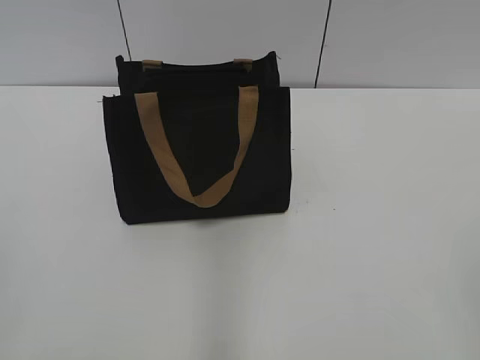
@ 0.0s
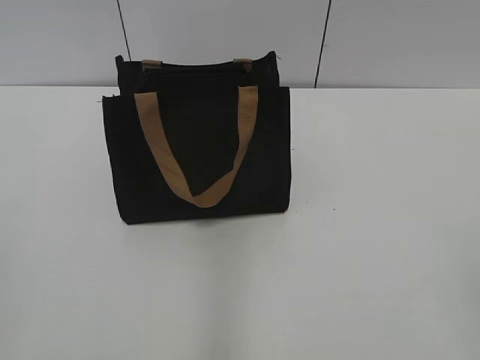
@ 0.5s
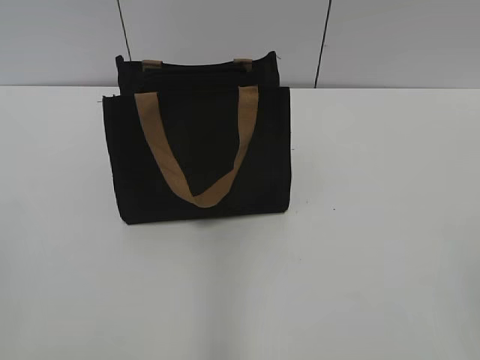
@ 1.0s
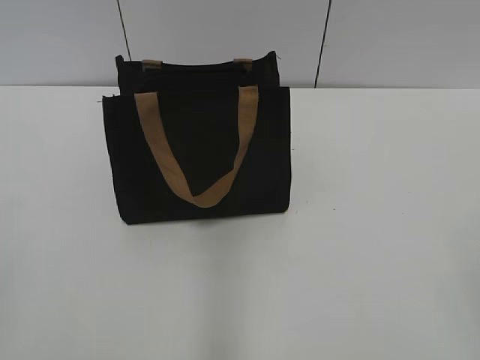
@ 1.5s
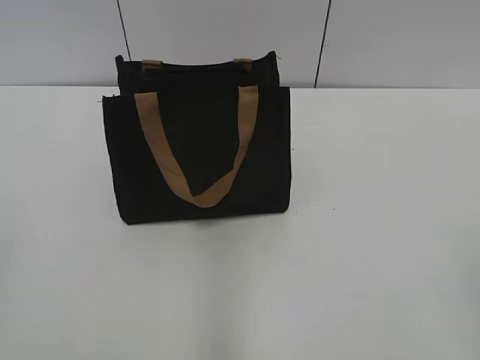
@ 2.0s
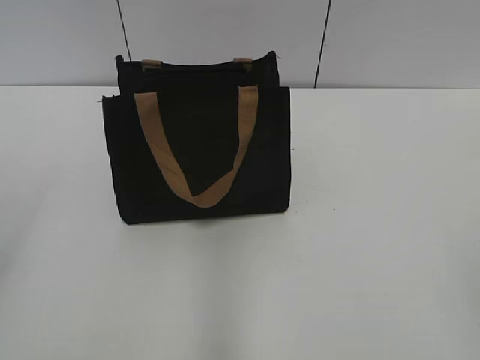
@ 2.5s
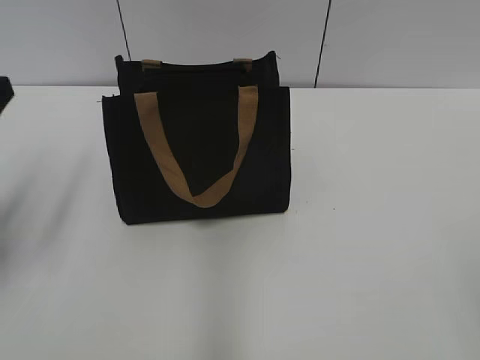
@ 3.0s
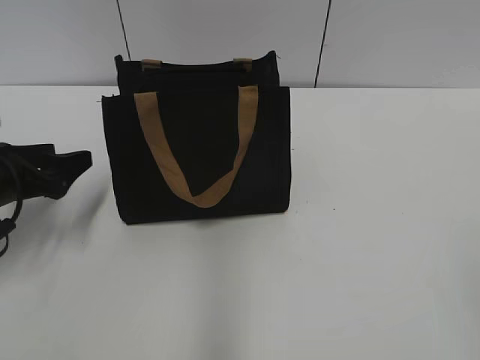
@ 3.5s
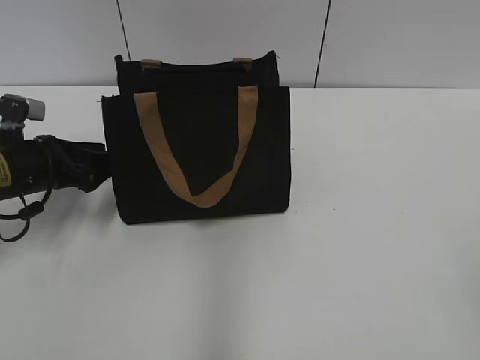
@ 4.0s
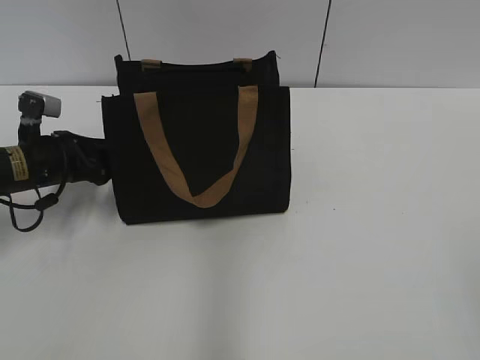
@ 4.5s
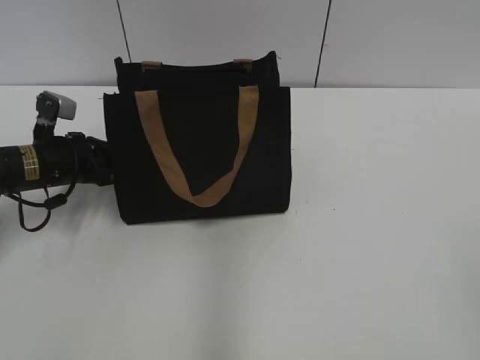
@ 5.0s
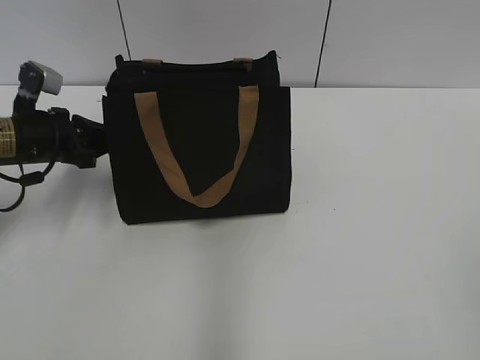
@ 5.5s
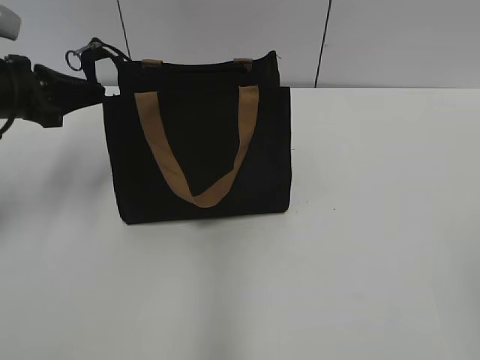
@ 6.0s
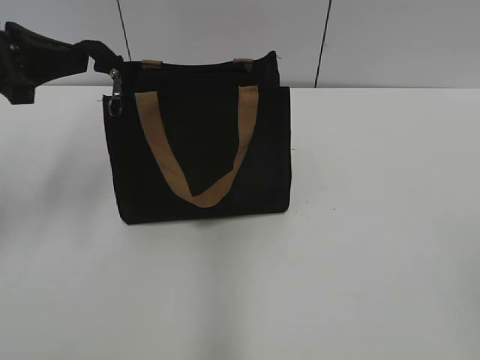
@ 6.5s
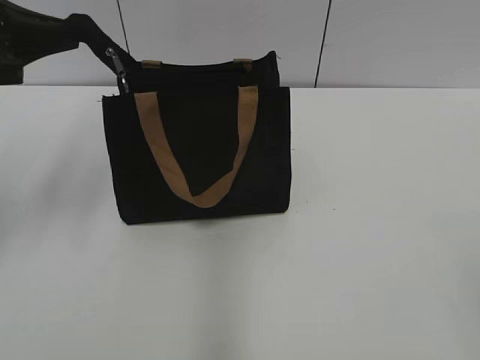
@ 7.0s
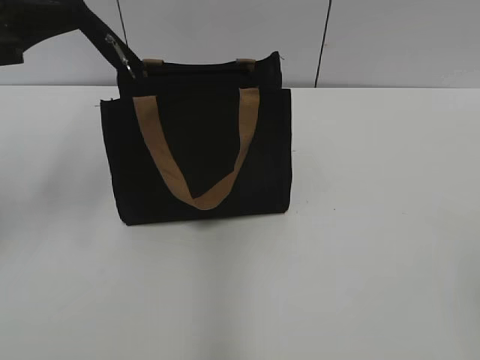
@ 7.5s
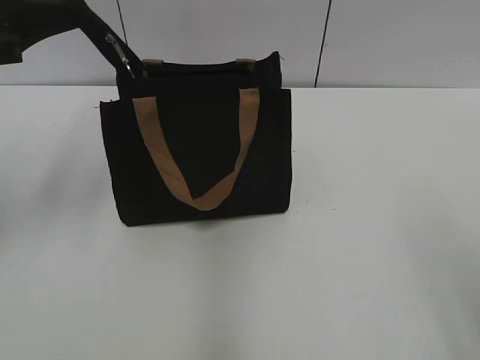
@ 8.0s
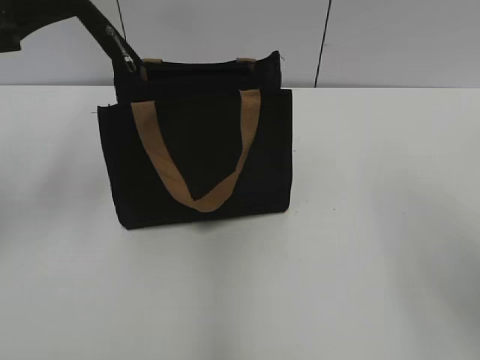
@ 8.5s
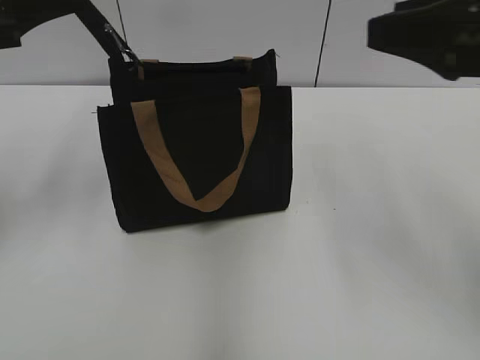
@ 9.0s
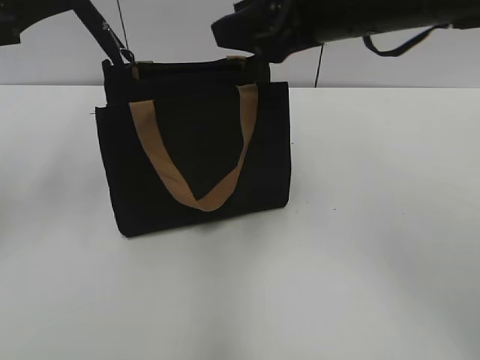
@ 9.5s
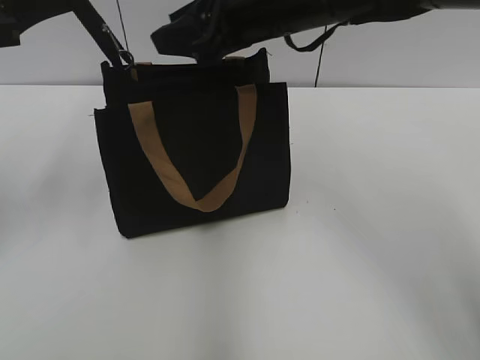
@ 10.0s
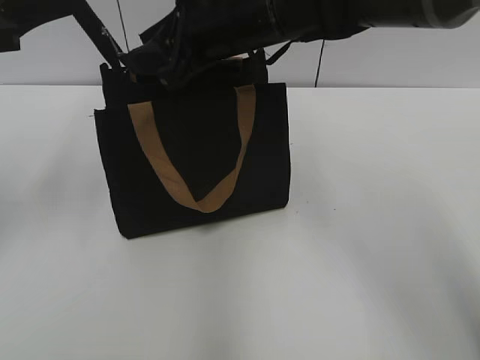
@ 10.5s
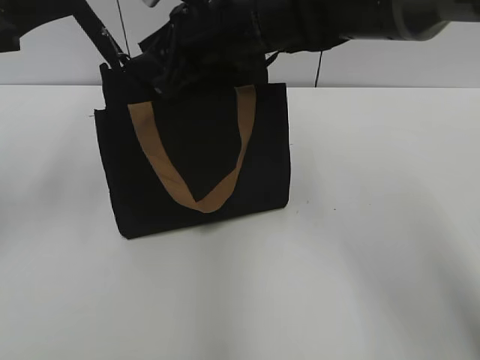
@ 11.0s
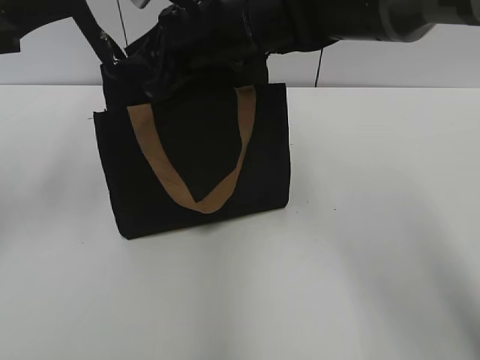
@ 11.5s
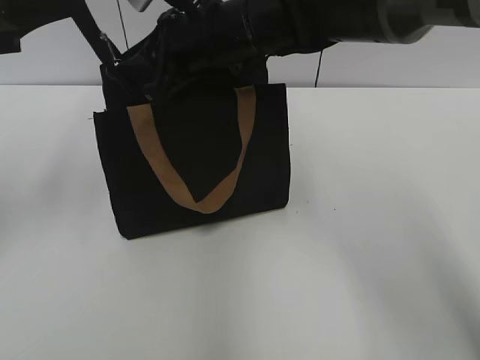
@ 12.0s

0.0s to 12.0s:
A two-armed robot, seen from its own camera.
2.0s to 4.0s: The left gripper moves forward and downward, approximately 40 cm.
4.0s to 6.0s: The left gripper travels upward by approximately 10 cm, and closes.
6.0s to 8.0s: The left gripper shifts approximately 10 cm upward. Meanwhile the right gripper changes place by roughly 5 cm.
8.0s to 10.0s: The right gripper shifts about 40 cm forward and to the left.
10.0s to 12.0s: The right gripper is displaced to the left by roughly 5 cm.

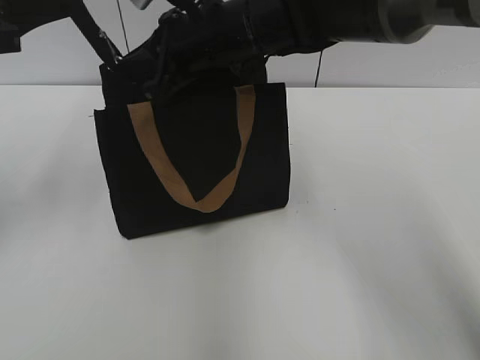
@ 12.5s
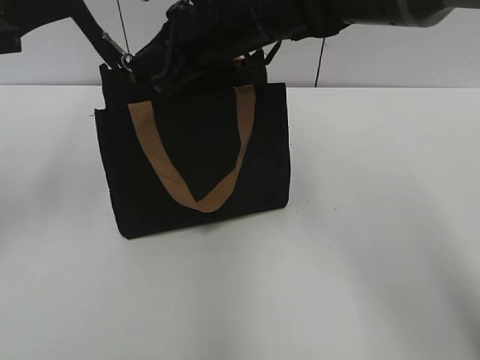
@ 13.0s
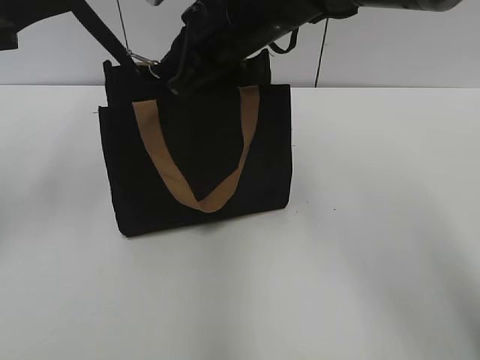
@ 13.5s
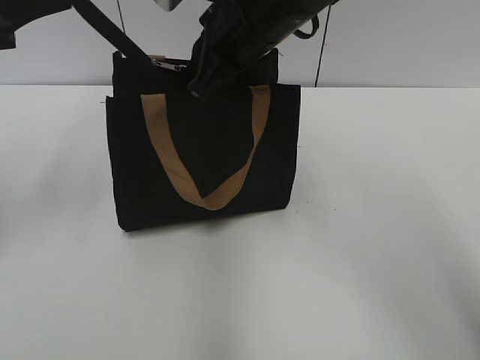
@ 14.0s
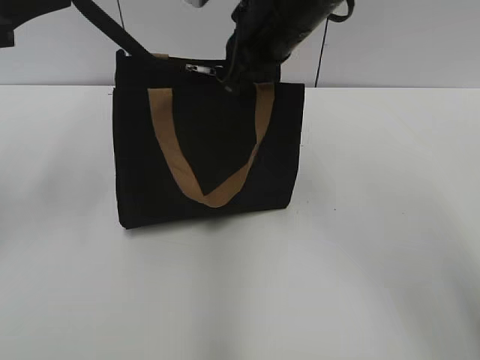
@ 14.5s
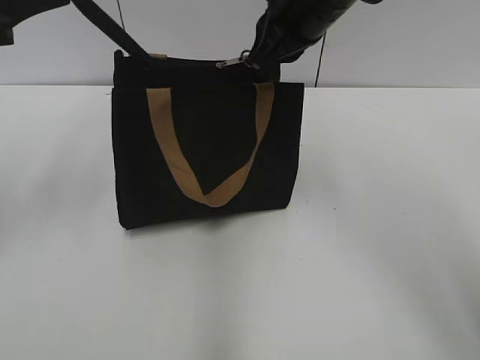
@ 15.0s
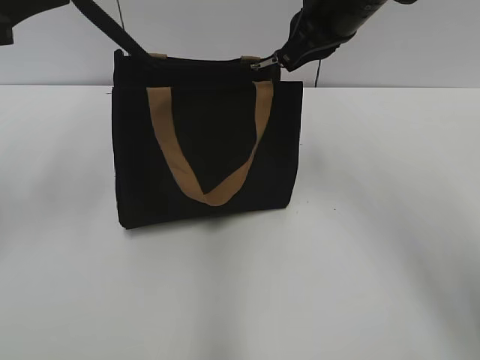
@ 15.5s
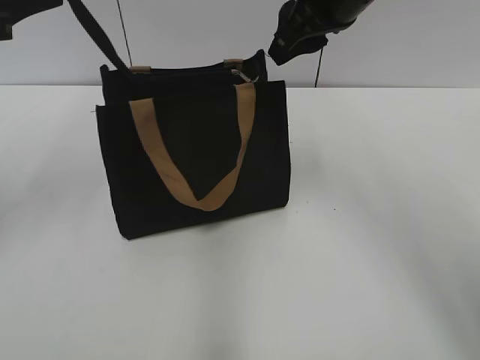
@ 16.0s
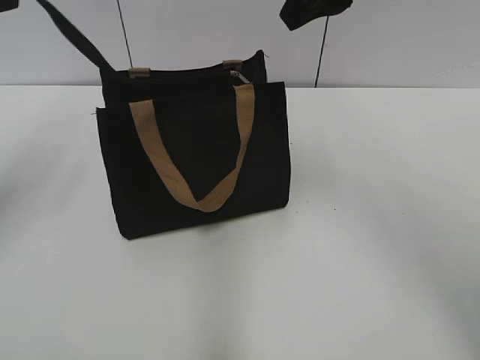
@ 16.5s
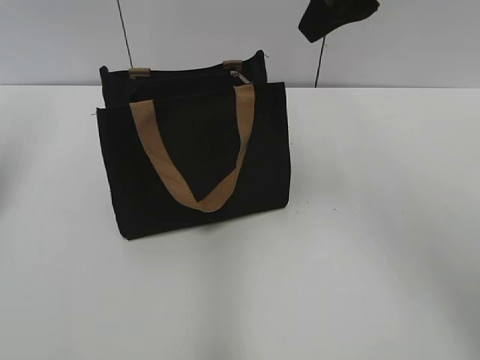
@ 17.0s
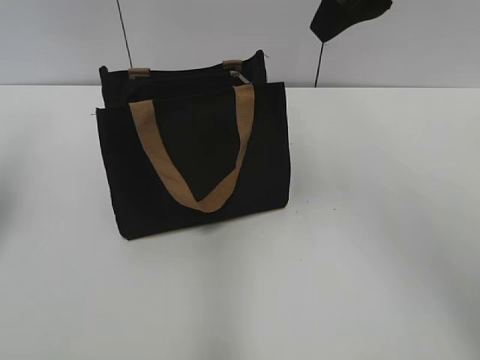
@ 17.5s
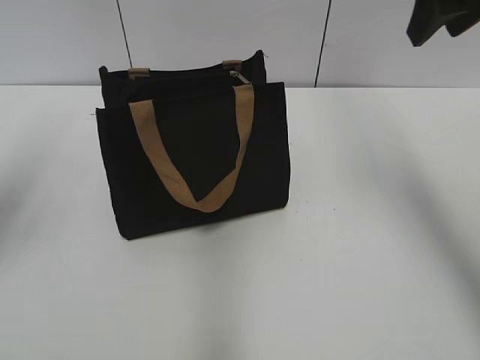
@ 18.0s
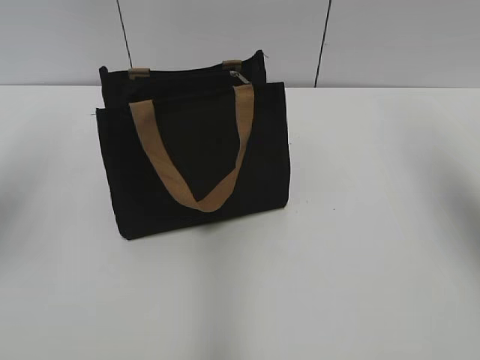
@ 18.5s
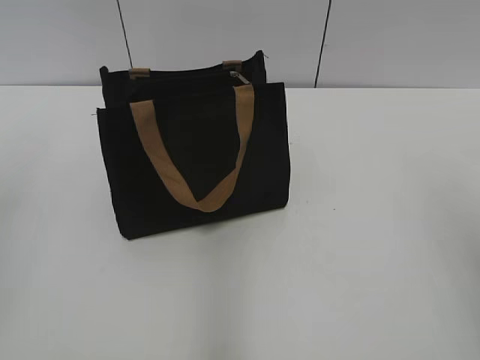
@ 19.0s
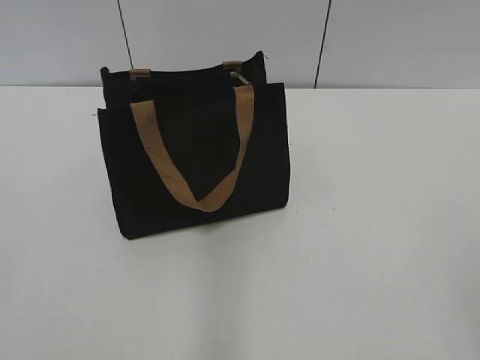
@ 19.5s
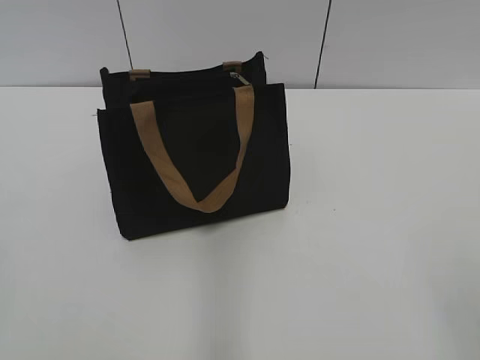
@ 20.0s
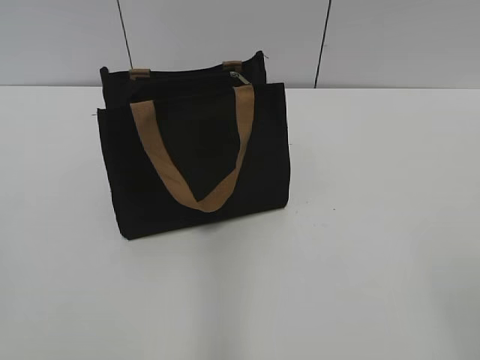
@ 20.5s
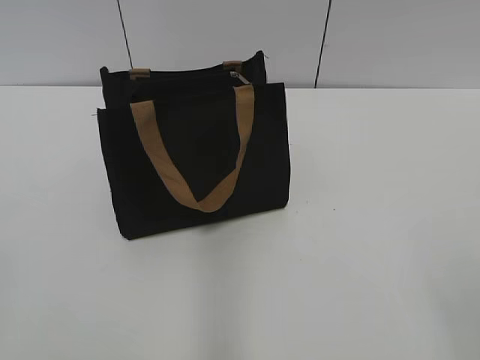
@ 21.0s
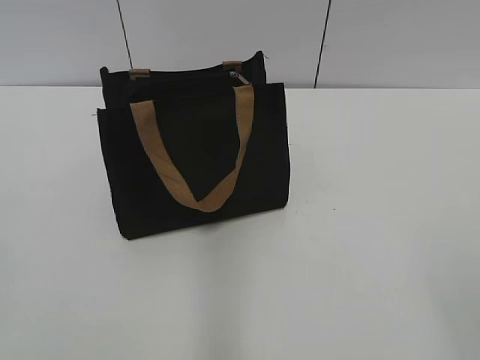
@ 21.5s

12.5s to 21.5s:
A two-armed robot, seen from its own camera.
Step, 12.5s to 15.5s: Zip up the bag with your right hand.
12.5s to 14.5s: The right gripper is displaced to the right by some 5 cm.
14.5s to 17.0s: The left gripper heads to the left, covering approximately 10 cm, and opens its fingers; the right gripper travels upward and to the right by roughly 10 cm, and opens its fingers.
17.0s to 19.5s: The left gripper shifts about 30 cm backward; the right gripper goes roughly 35 cm backward and to the right.

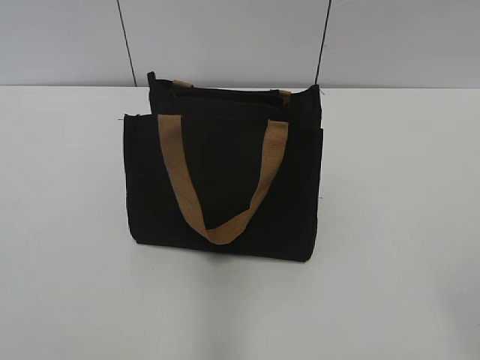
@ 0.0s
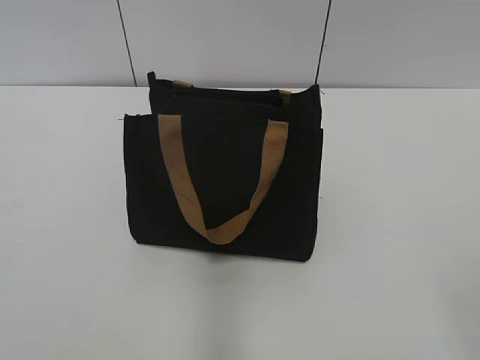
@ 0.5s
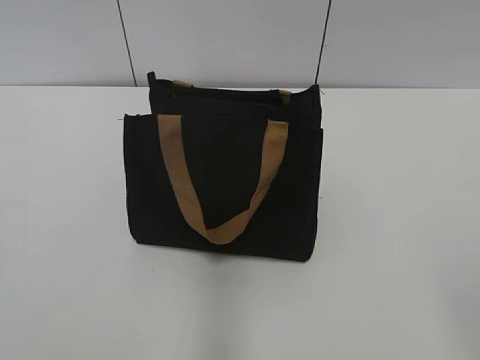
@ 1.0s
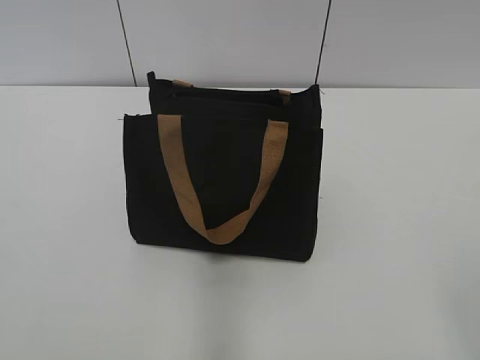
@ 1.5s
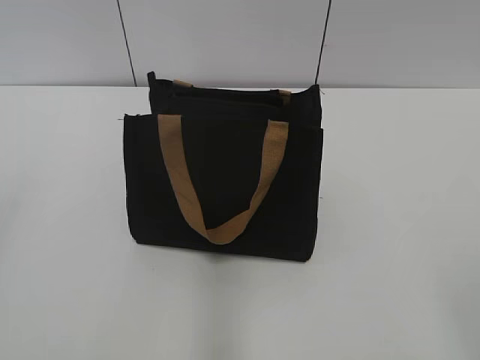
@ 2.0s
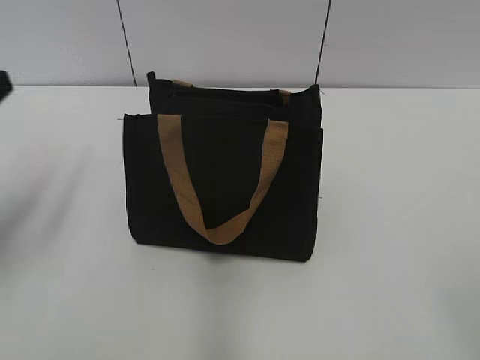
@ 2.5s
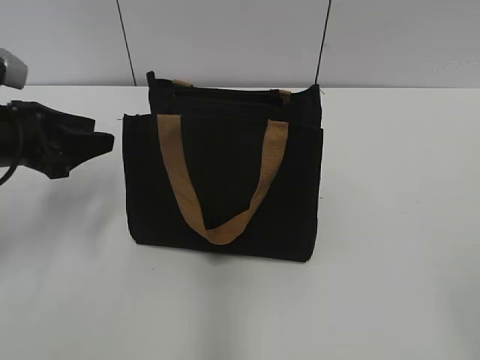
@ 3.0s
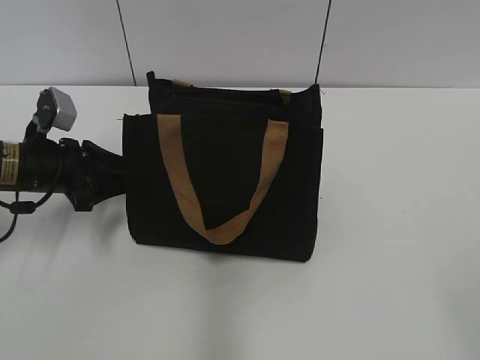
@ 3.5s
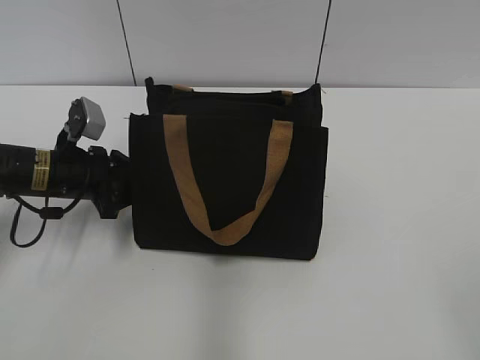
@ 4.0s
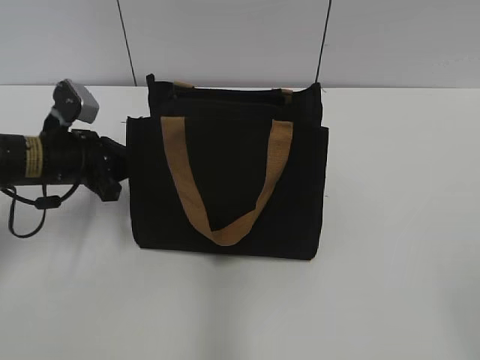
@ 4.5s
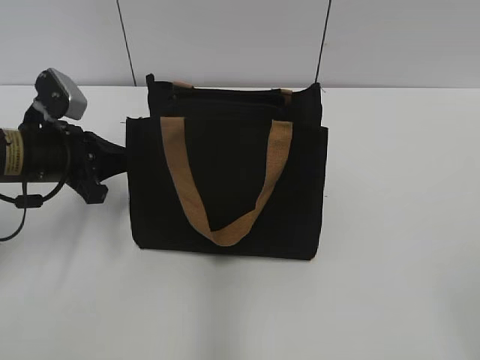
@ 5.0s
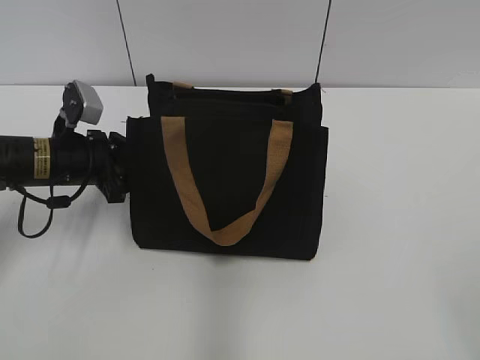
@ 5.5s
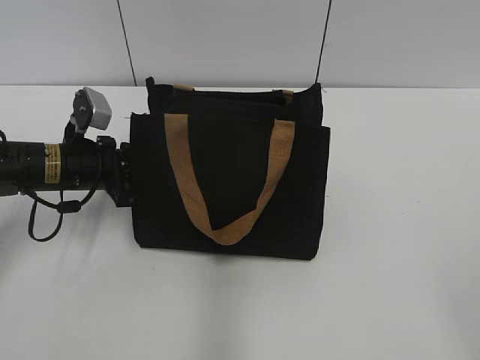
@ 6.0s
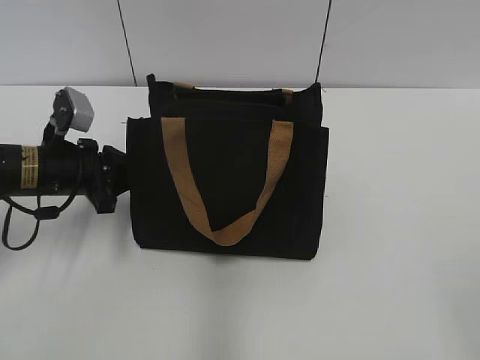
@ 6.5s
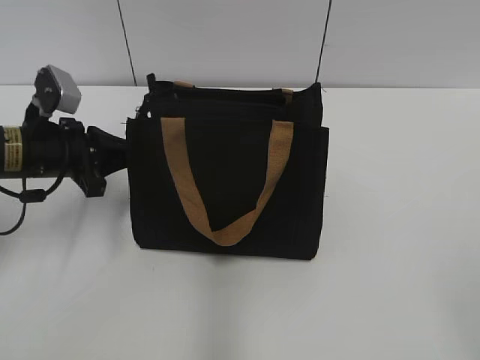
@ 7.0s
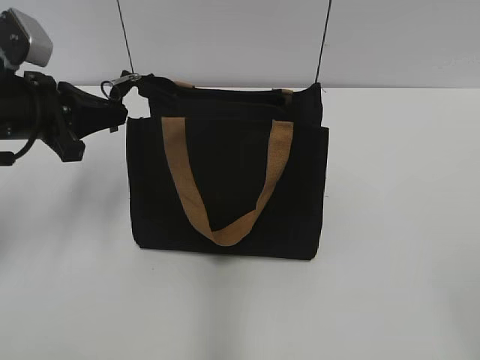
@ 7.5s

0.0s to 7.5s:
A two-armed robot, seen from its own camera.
2.0s to 4.0s: The left gripper is displaced forward and downward by about 35 cm, and closes its fingers.
4.0s to 5.5s: The left gripper closes, then opens again.
5.5s to 7.5s: The left gripper goes approximately 10 cm upward, and closes up.
